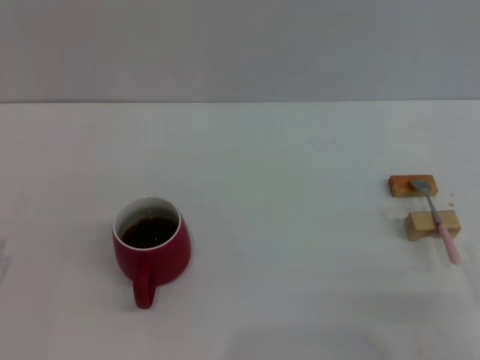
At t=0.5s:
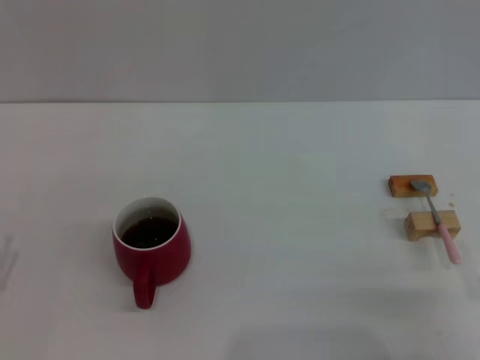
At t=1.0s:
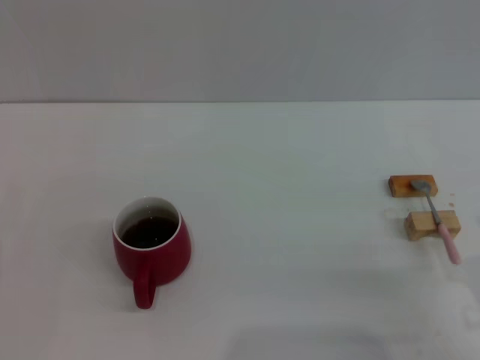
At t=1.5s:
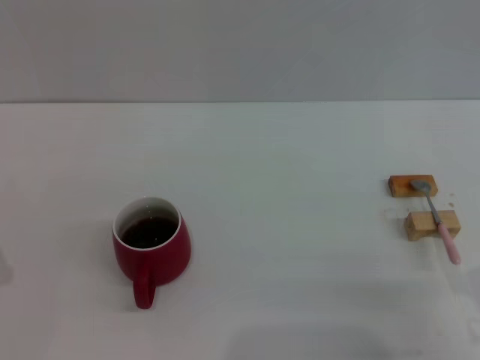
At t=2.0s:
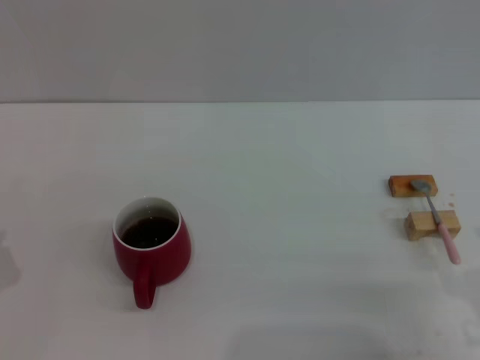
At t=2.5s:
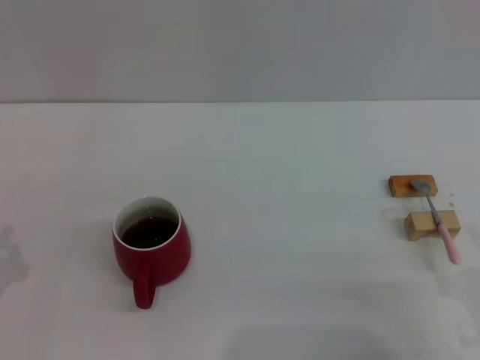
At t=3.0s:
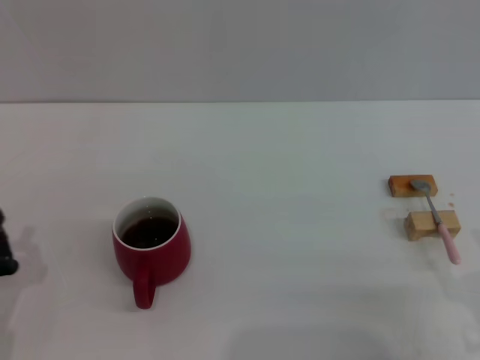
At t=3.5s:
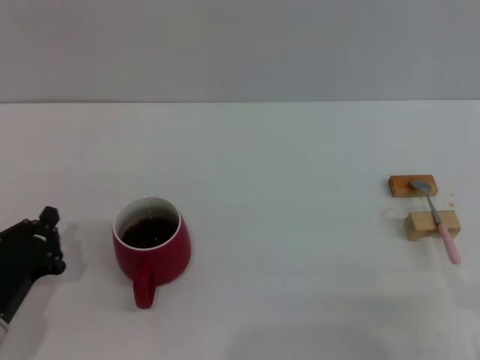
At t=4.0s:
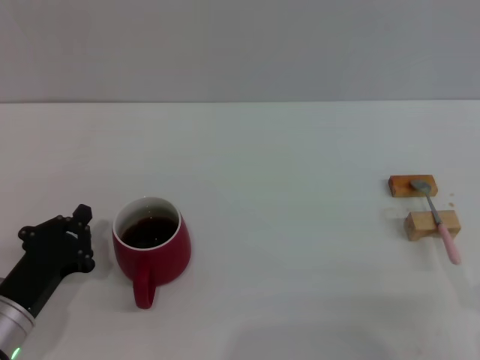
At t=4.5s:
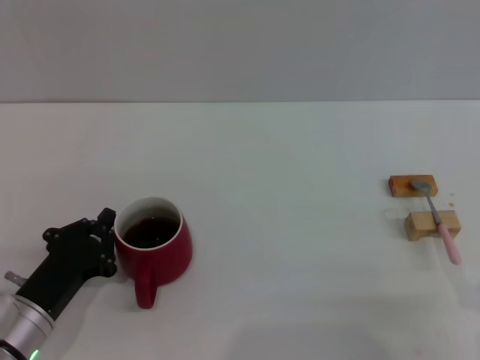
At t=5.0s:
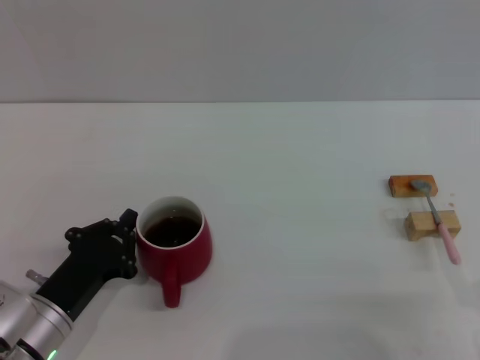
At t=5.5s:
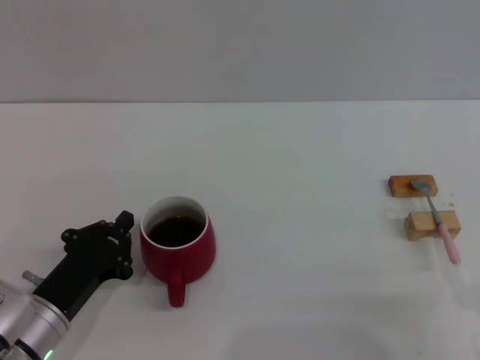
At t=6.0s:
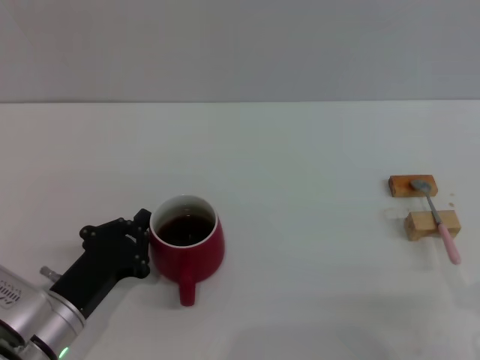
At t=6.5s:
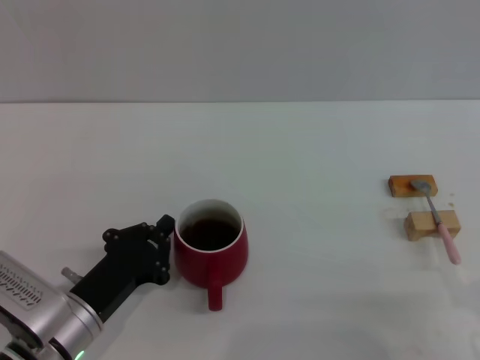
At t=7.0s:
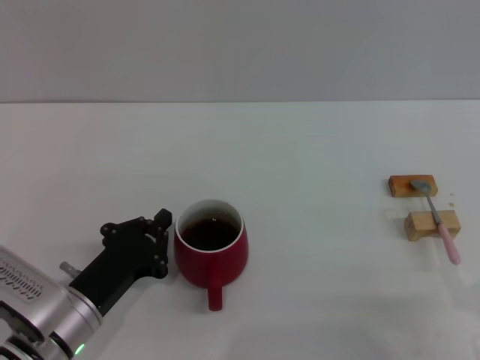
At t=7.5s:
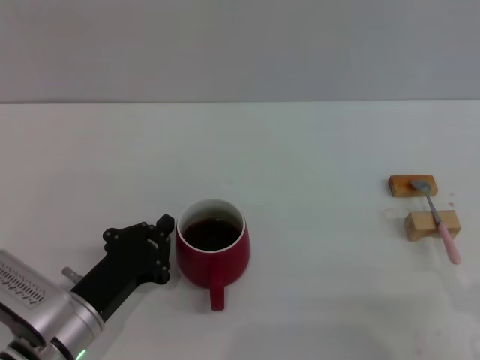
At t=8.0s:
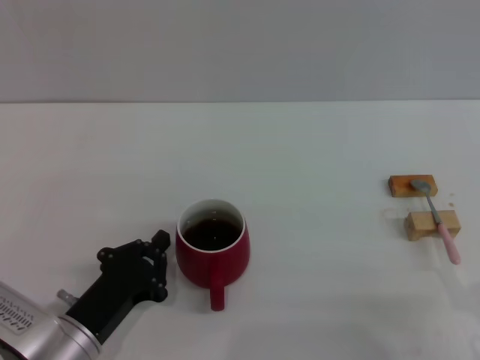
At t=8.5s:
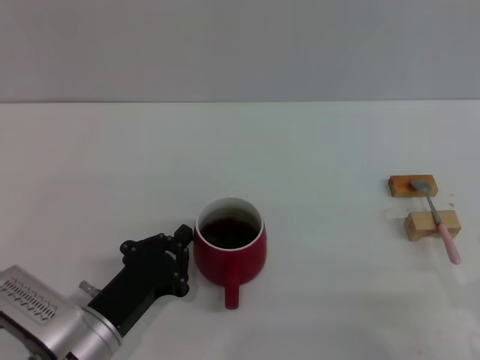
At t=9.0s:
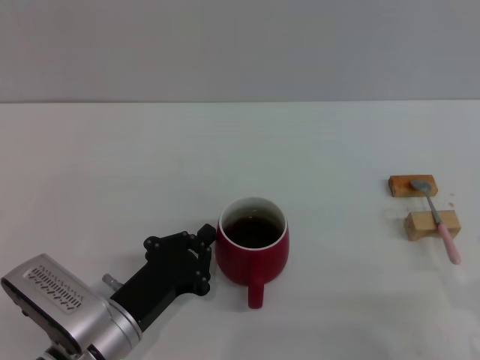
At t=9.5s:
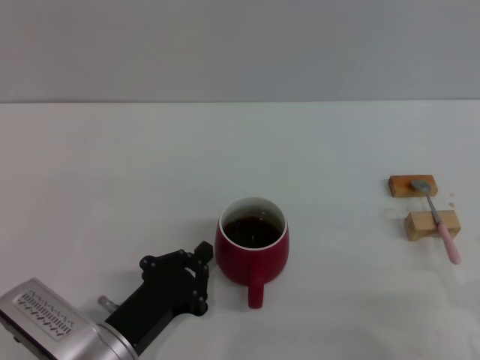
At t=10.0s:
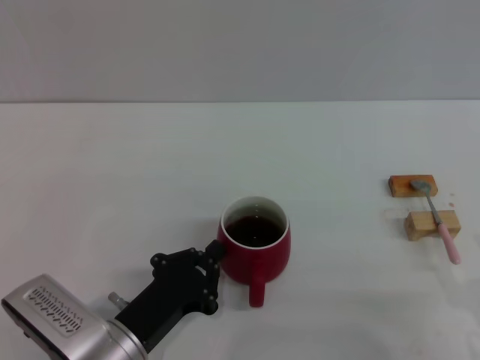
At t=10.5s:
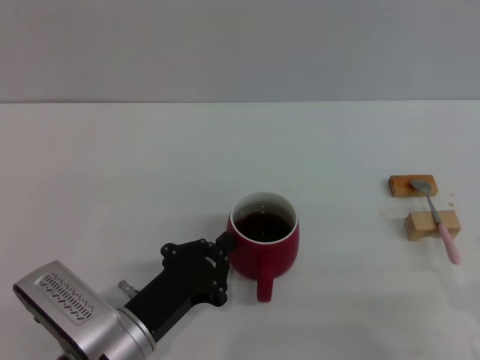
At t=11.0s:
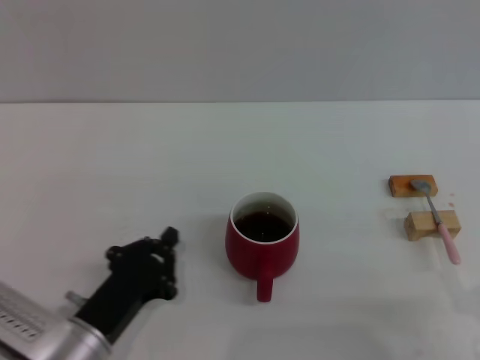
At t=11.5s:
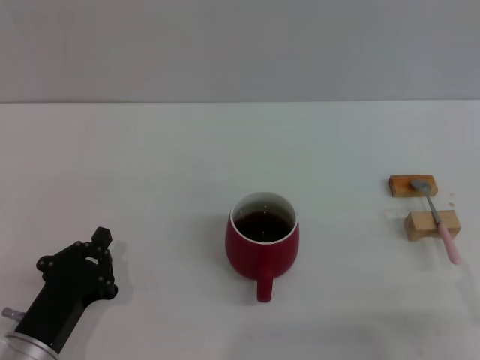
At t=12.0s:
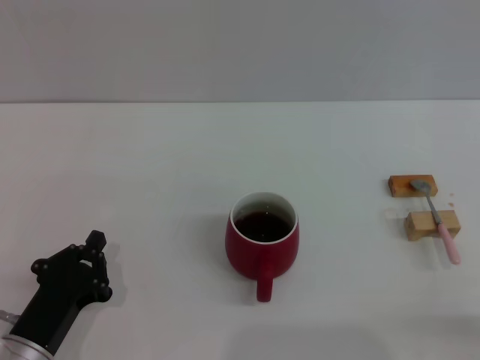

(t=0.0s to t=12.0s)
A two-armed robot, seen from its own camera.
Task of the whole recording: Move the red cup to the center, lift the pink spoon, stir it three times in the cup, and put the spoon into the cup.
t=2.0s - t=4.0s: The left gripper moves to the right, approximately 5 cm.
t=4.0s - t=6.0s: There are only small adjustments of the grippers.
t=6.0s - t=8.0s: The grippers stay close to where they were, moving slightly.
t=8.0s - t=10.0s: There are only small adjustments of the grippers.
t=10.0s - t=12.0s: The left gripper travels to the left by approximately 5 cm.

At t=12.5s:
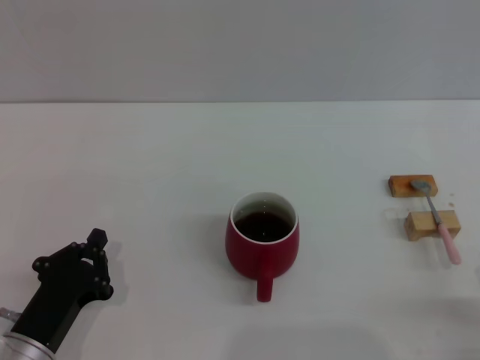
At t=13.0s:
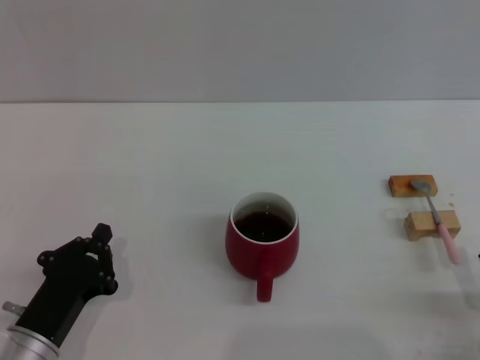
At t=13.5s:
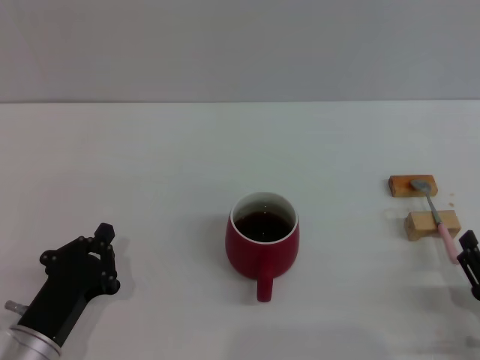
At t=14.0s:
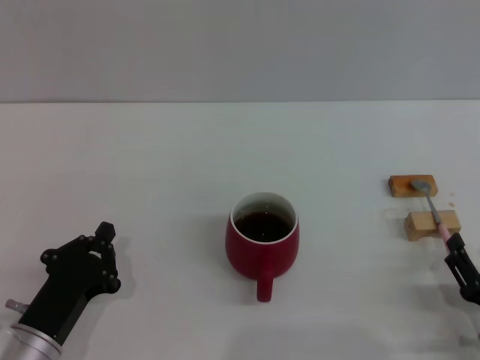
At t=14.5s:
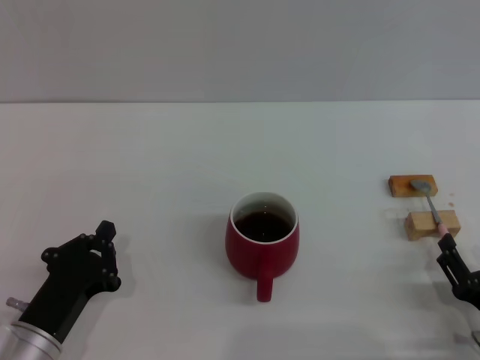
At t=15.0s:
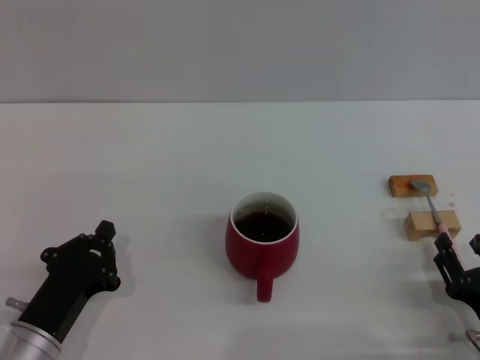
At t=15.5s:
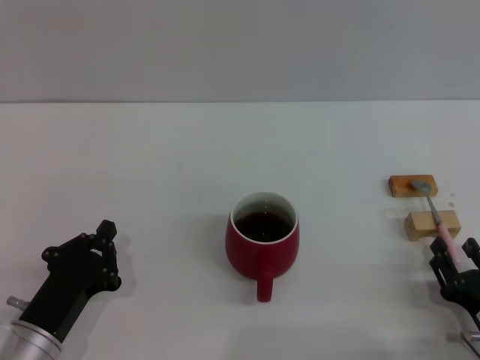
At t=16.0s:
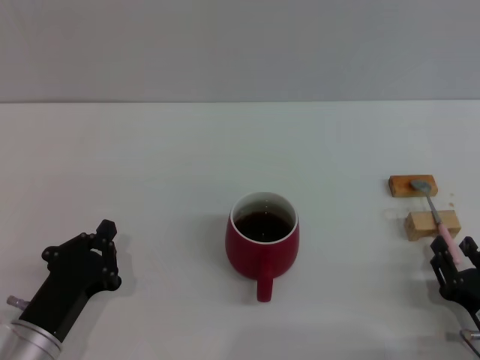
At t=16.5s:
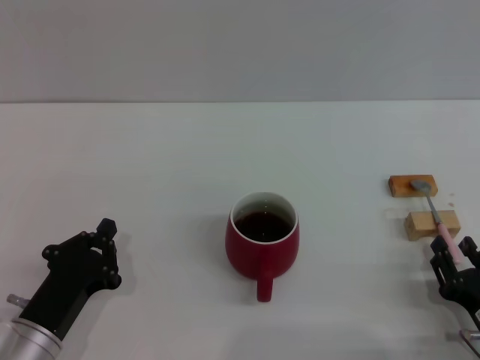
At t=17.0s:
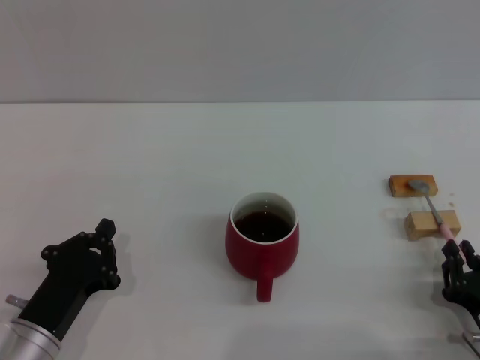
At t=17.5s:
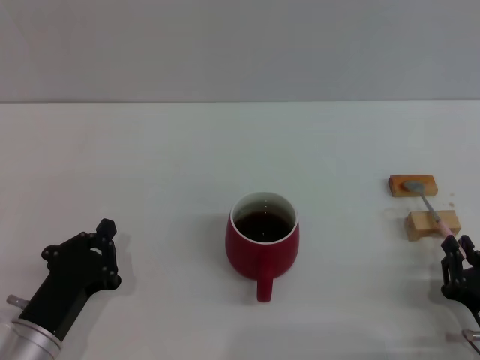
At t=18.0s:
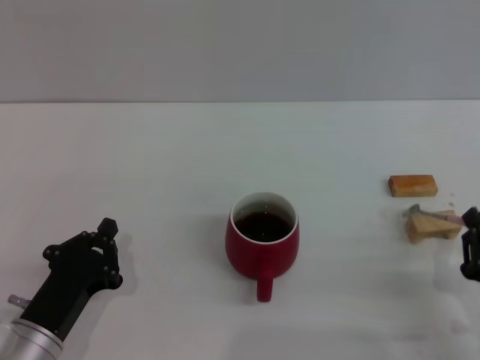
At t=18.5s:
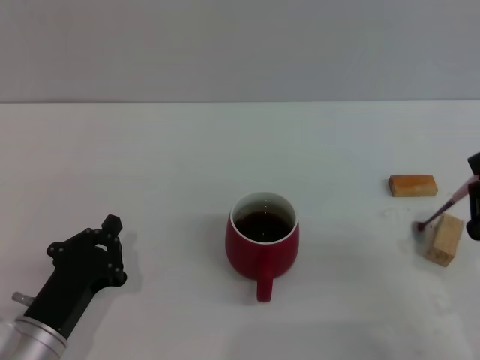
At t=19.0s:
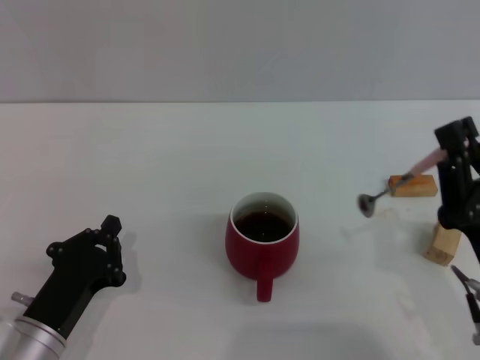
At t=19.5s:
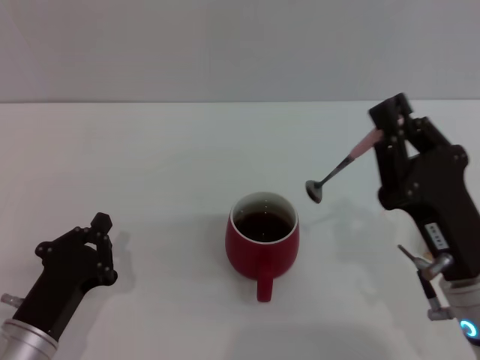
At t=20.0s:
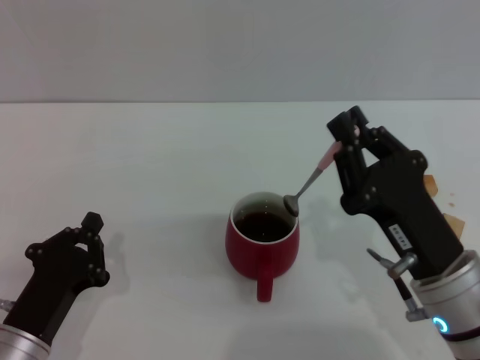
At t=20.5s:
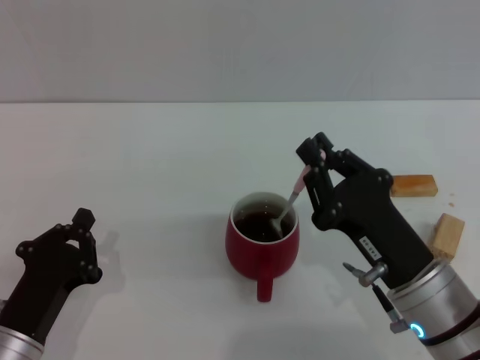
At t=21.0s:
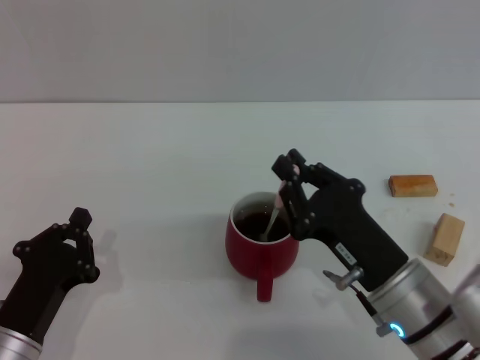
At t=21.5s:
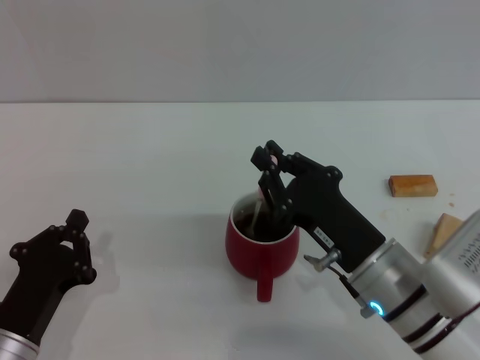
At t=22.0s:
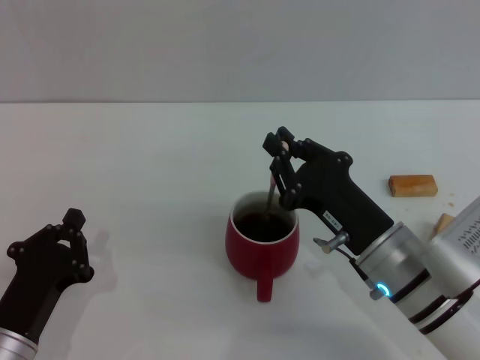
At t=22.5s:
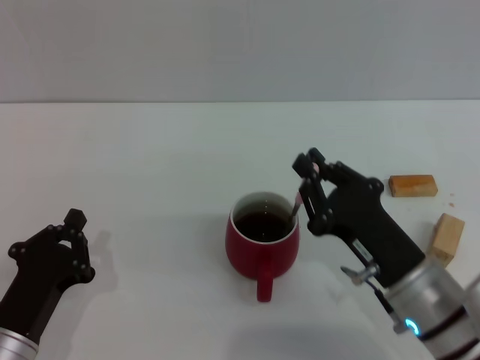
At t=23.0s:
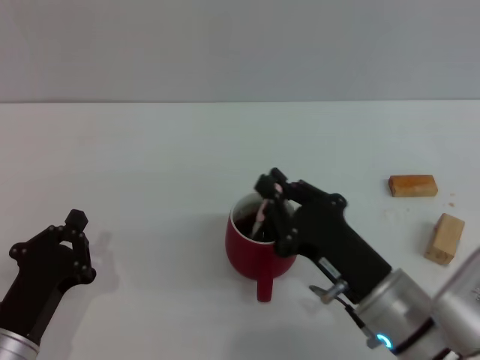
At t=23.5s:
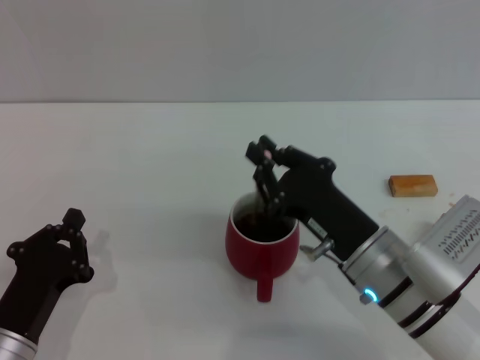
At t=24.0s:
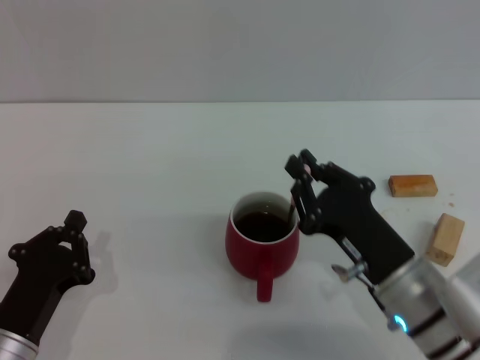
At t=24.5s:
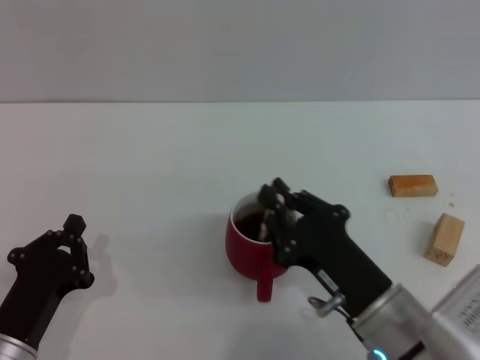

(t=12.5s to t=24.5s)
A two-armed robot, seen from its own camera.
Task of the whole recording: Move the red cup to the center, lift the pink spoon, stir it three times in the cup, and put the spoon into the cup.
Step, t=12.5s - t=18.5s: Pick up the spoon with the right gripper.
t=12.5s - t=14.5s: There are only small adjustments of the grippers.
t=14.5s - t=16.5s: The right gripper closes its fingers.
t=16.5s - t=18.5s: The right gripper travels upward by approximately 5 cm, and closes up.
t=18.5s - t=20.5s: The right gripper goes approximately 10 cm to the left.
t=20.5s - t=24.5s: The grippers stay close to where they were, moving slightly.

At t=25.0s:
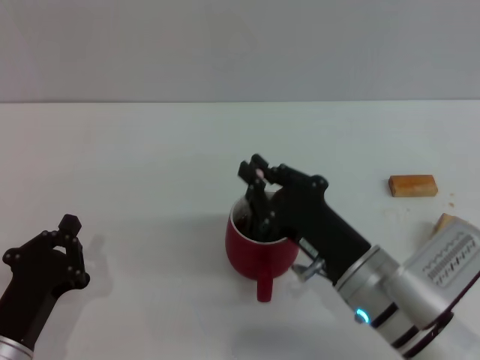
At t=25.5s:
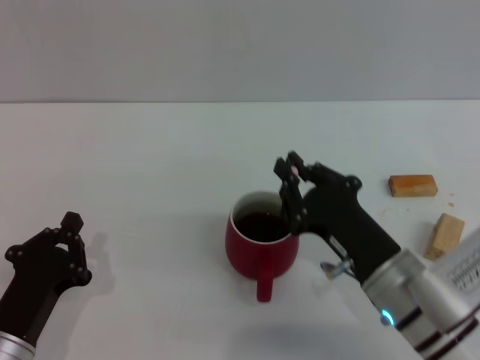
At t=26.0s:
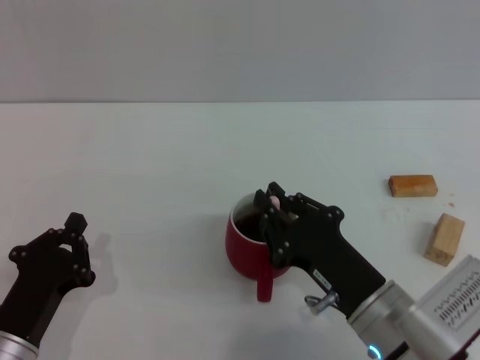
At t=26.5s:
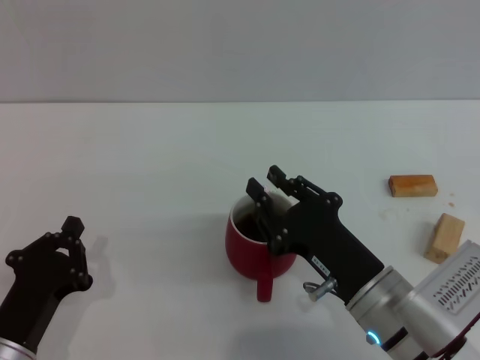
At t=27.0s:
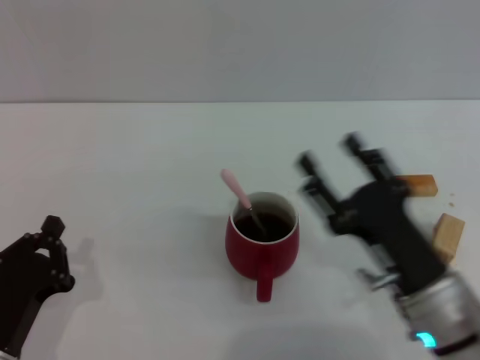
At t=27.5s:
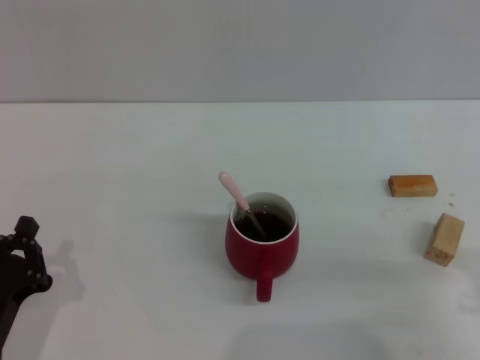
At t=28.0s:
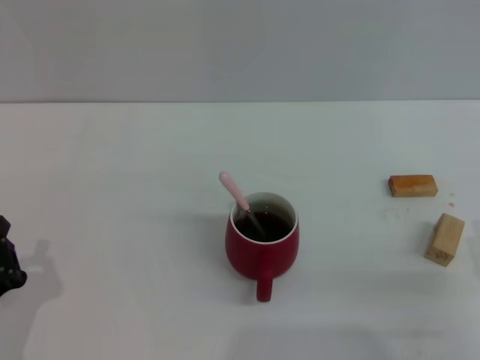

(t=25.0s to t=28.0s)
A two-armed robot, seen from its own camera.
Task of the whole recording: Move the red cup to the center, lift the pink spoon, stir it three times in the cup, and put the spoon into the cup.
Step, t=25.0s - t=27.0s: Stir the coffee in the cup with the right gripper.
t=25.0s - t=26.5s: The grippers make only small movements.
t=26.5s - t=28.0s: The right gripper goes approximately 15 cm to the right and backward, and opens its fingers.
